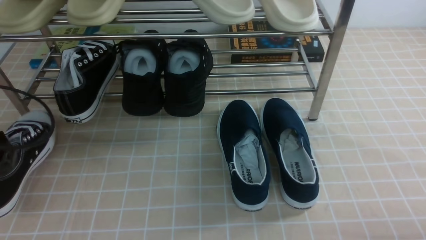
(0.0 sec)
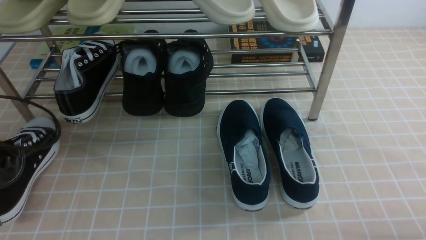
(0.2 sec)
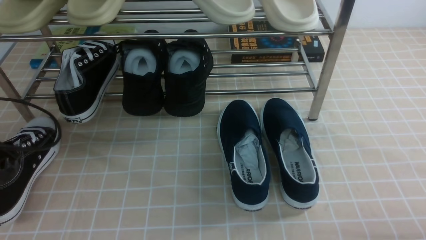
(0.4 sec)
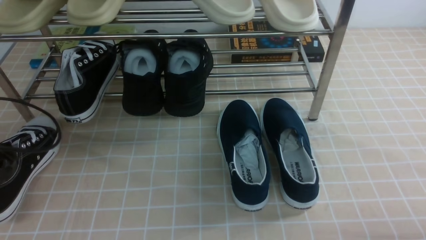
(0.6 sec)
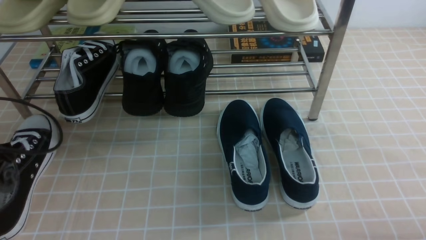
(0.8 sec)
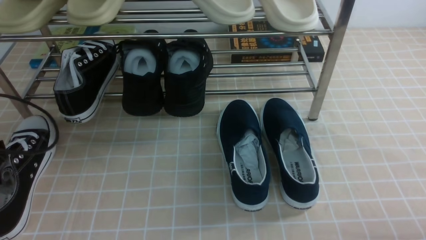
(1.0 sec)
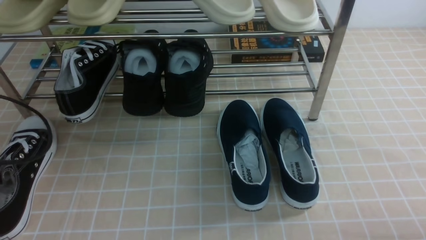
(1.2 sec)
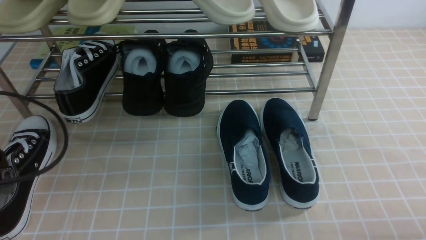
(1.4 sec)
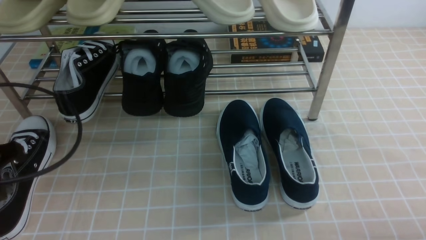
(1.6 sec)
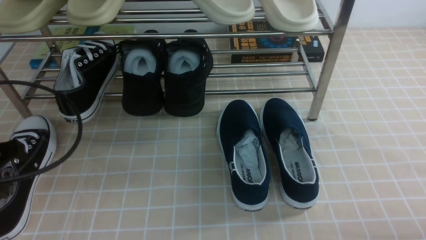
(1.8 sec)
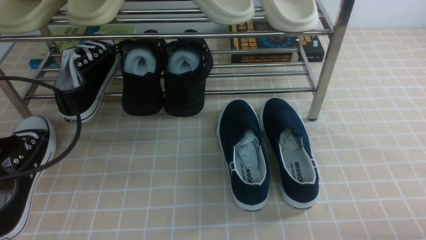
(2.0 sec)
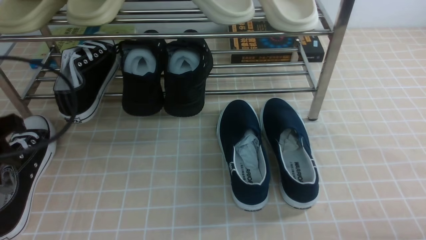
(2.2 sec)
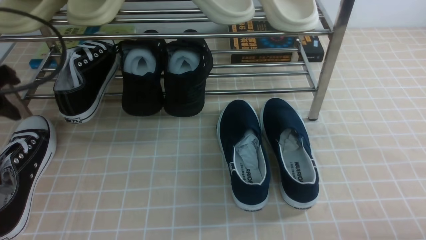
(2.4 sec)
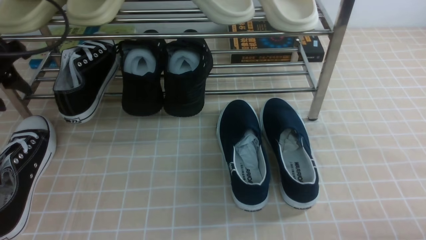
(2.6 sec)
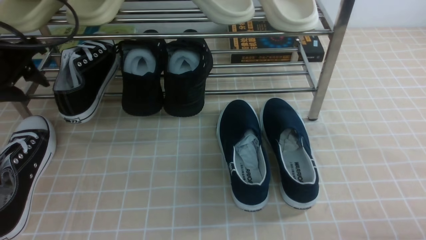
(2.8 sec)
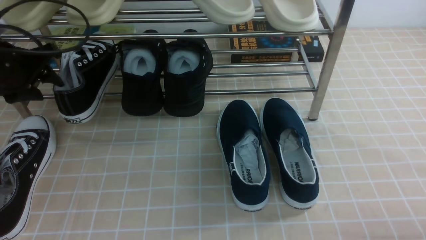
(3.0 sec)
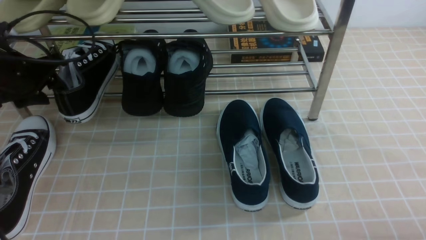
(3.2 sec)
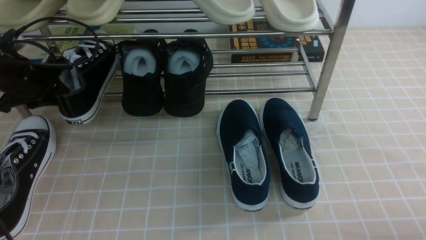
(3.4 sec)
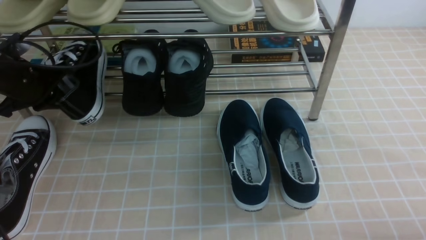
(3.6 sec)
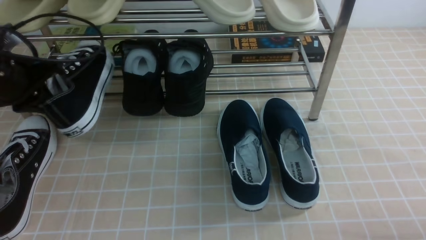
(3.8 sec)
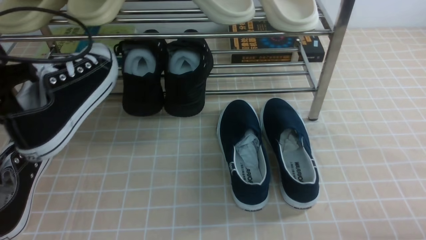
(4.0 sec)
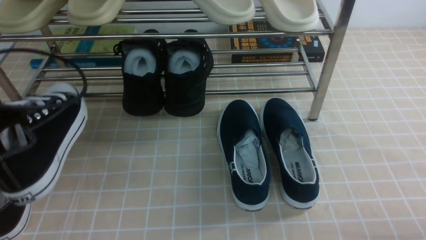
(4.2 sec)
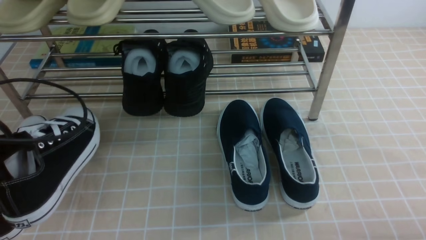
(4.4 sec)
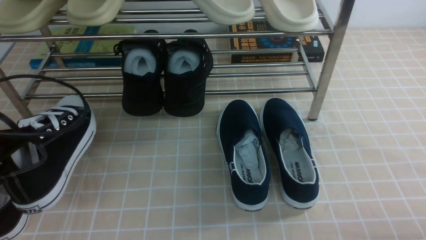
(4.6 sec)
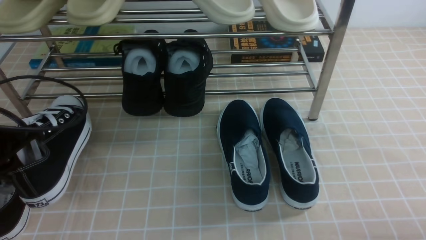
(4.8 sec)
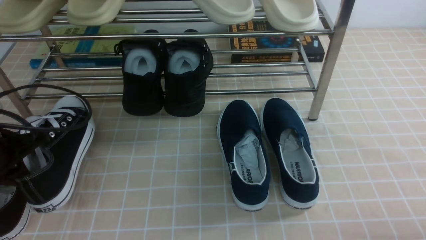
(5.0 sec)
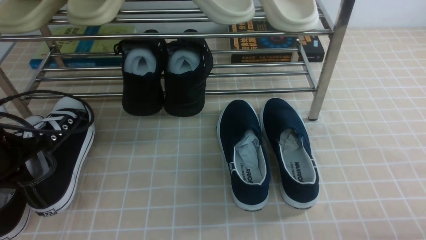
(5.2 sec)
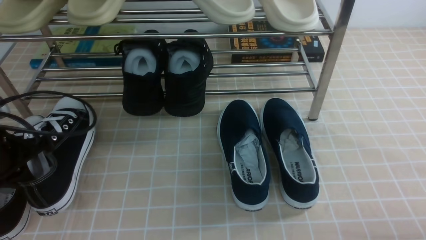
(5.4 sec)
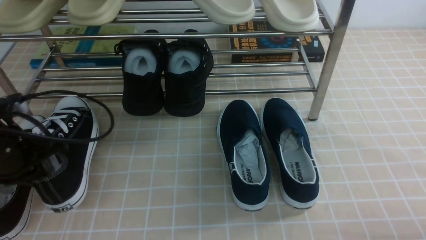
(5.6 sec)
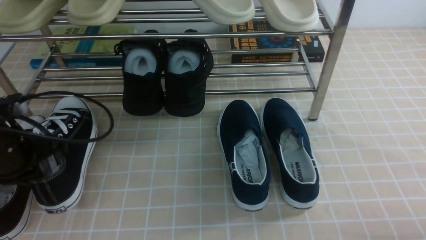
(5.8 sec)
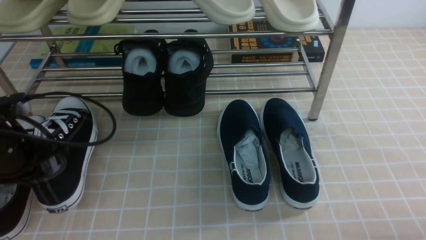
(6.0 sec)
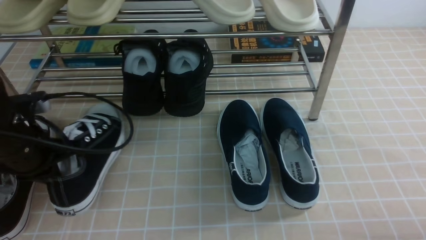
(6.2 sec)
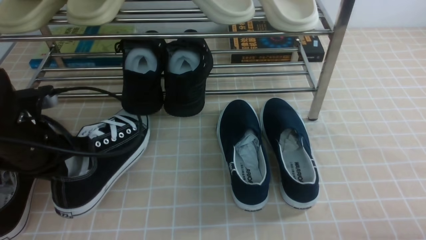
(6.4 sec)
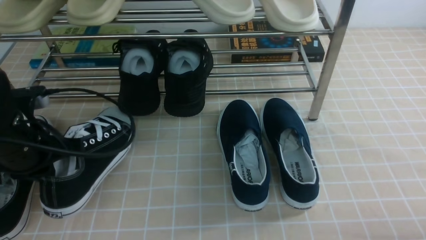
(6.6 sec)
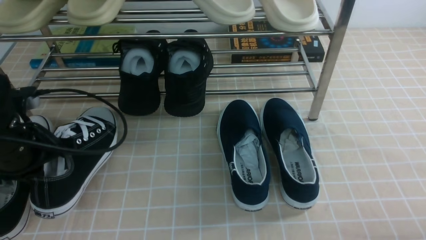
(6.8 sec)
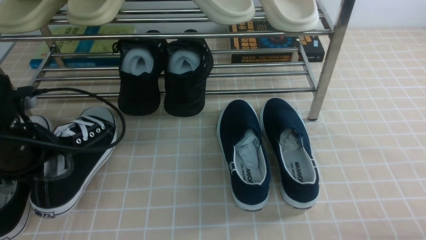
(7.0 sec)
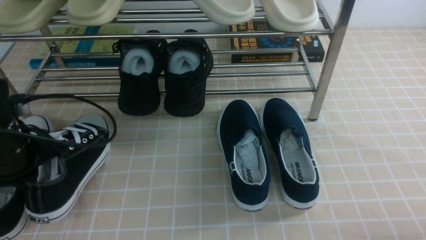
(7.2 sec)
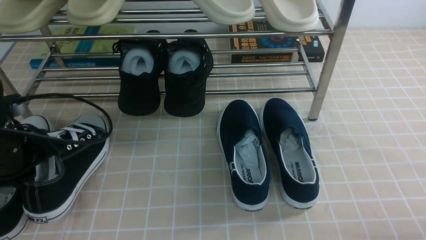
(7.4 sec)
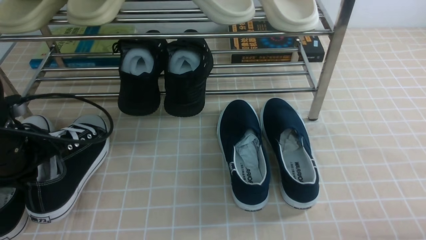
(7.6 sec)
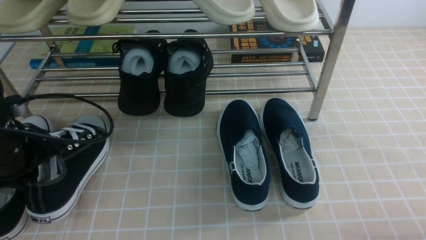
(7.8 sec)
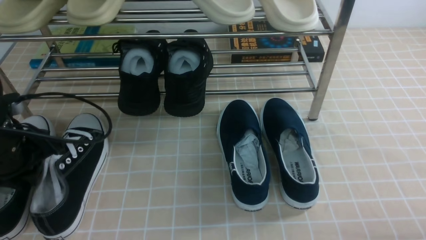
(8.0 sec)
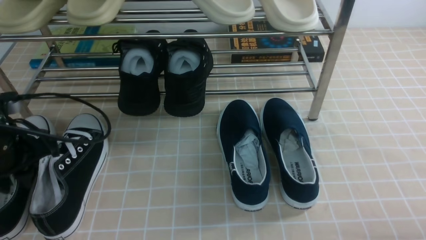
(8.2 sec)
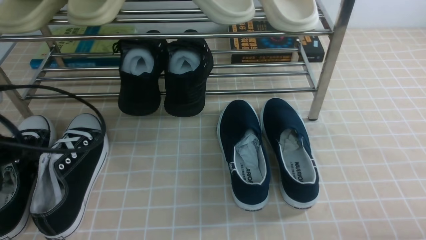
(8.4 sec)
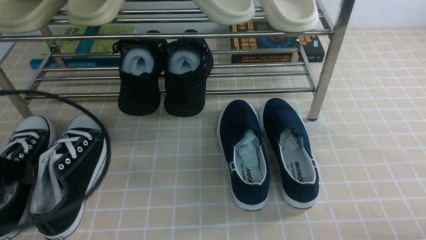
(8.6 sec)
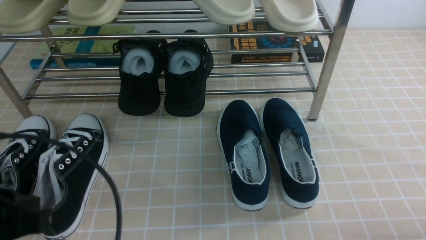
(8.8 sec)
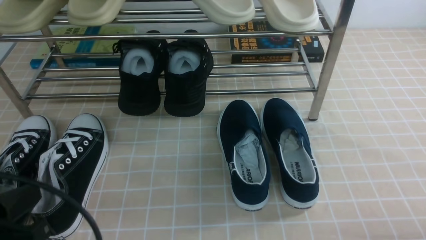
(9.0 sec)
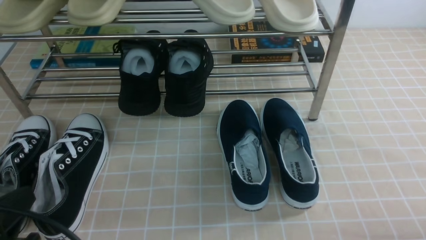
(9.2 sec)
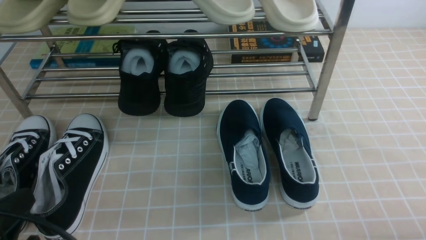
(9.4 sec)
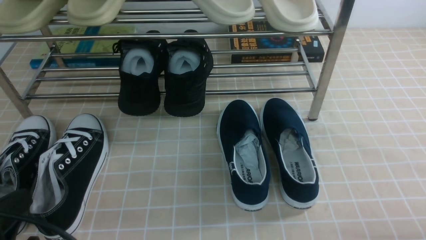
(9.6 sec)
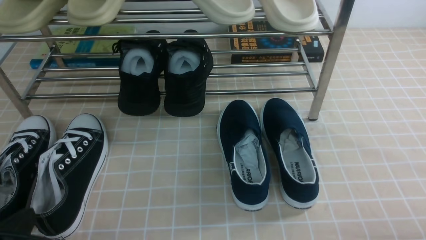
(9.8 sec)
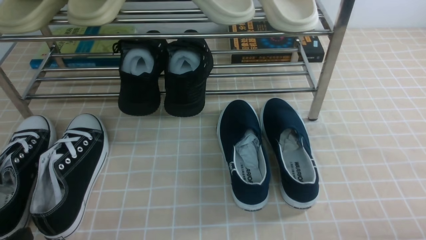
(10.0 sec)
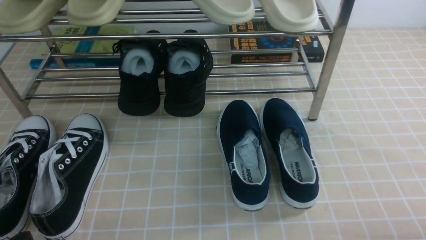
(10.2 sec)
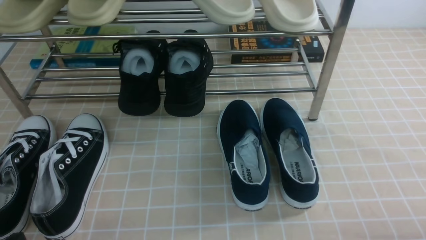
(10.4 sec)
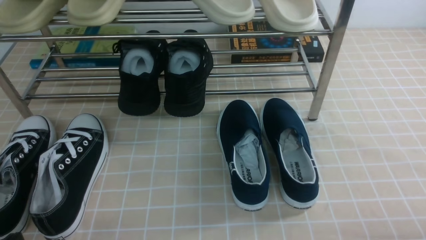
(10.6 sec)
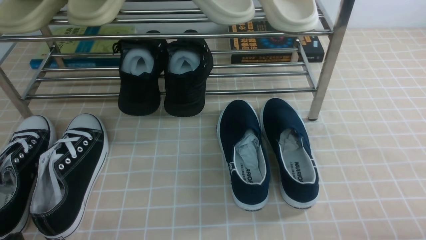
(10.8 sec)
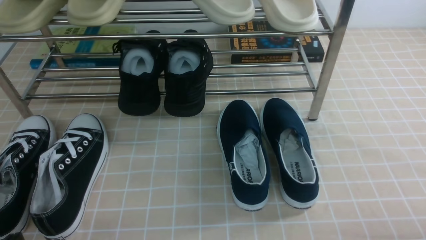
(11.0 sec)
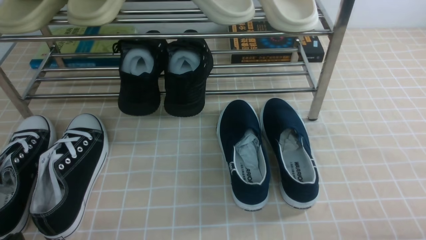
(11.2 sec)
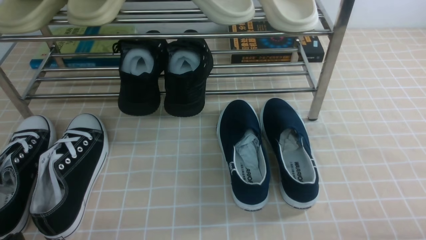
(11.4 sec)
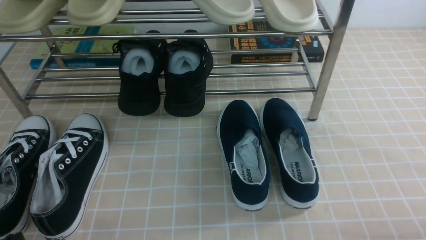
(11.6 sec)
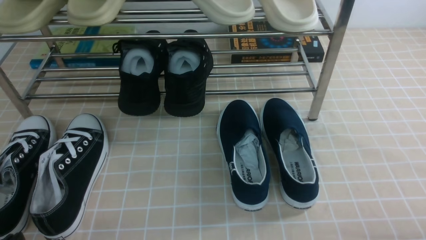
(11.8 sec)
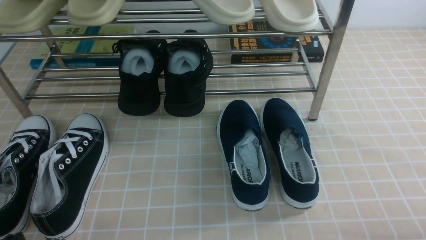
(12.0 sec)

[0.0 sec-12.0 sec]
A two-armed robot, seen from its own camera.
Step, 0.8 sec to 3.4 sec: use the left arm to clamp a shoe on the left side of the shoe rack.
Step, 3.6 sec to 8.0 sec: Use your left arm to remove the clamped shoe from the shoe rack and put it down.
0.0 sec to 1.6 sec: The left gripper shifts some 5 cm backward, and opens, then closes again.
1.6 sec to 3.0 sec: The left gripper moves forward, roughly 20 cm, and opens its fingers.
3.0 sec to 4.4 sec: The left gripper heads backward, covering approximately 15 cm, and closes.
4.4 sec to 6.0 sec: The left gripper is displaced downward by about 5 cm.
6.0 sec to 7.6 sec: The grippers stay close to where they were, moving slightly.
7.6 sec to 9.0 sec: The left gripper is displaced backward by some 20 cm.
9.0 sec to 10.4 sec: The left gripper shifts about 10 cm downward.
10.4 sec to 12.0 sec: Both grippers stay about where they are.
